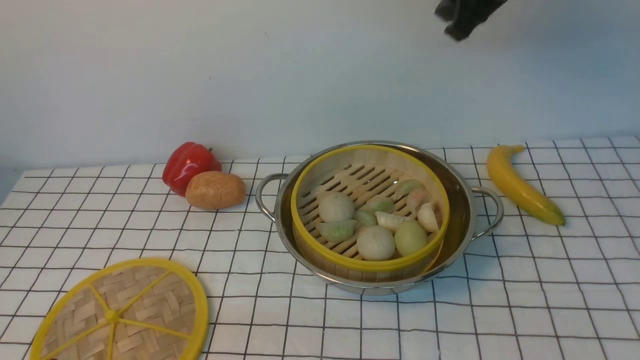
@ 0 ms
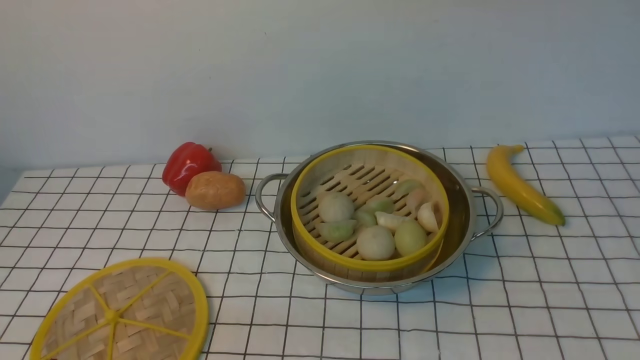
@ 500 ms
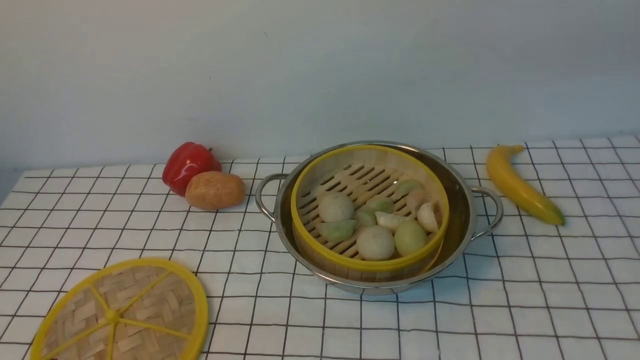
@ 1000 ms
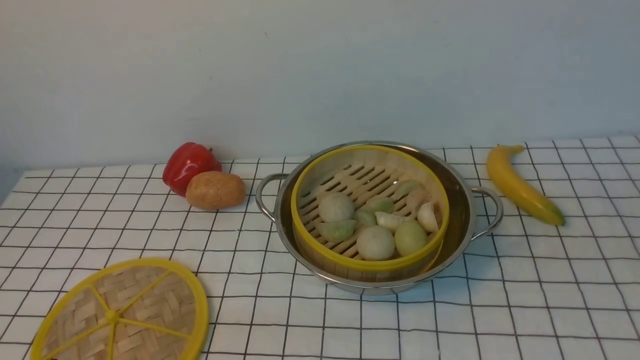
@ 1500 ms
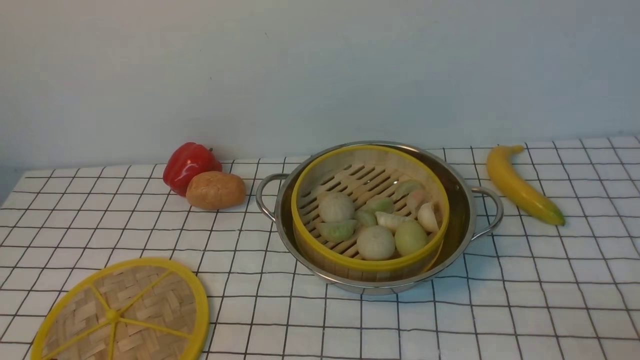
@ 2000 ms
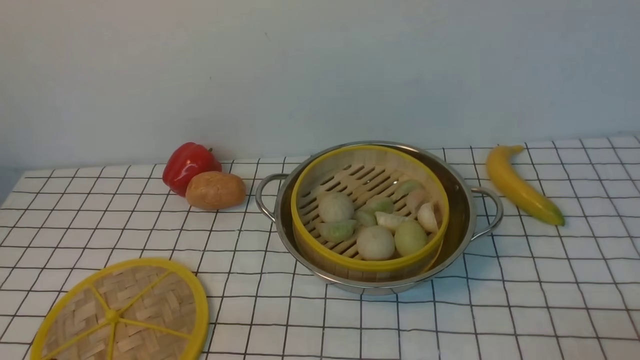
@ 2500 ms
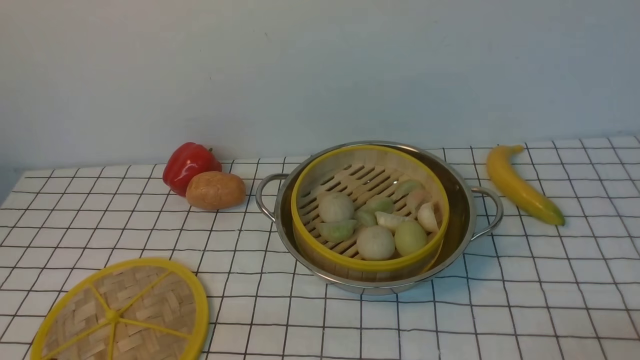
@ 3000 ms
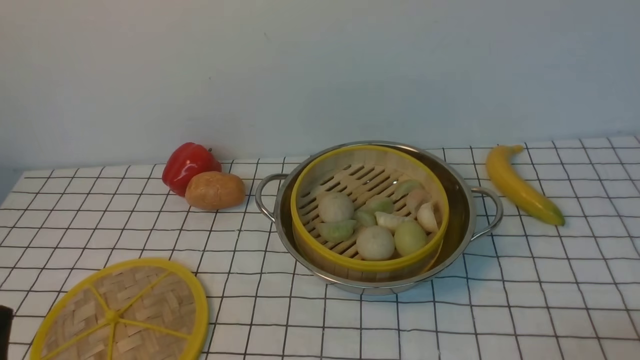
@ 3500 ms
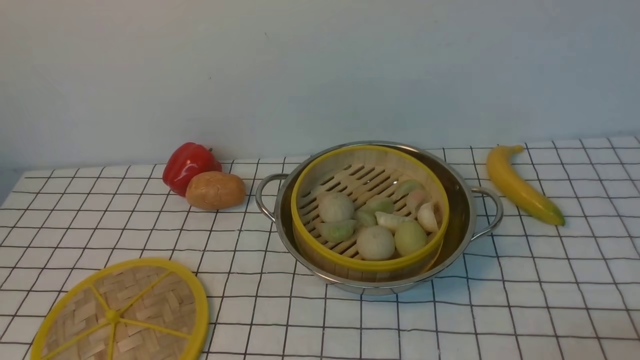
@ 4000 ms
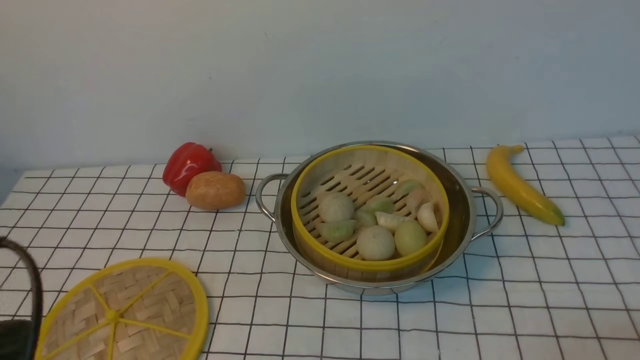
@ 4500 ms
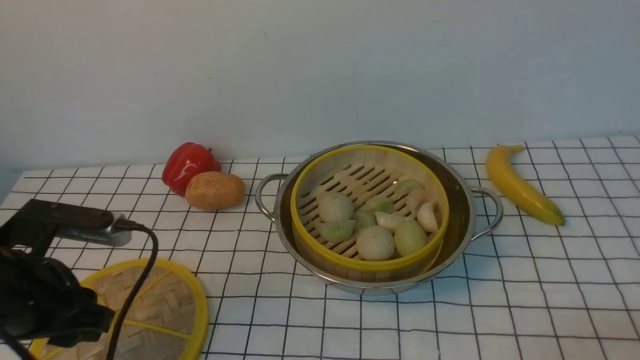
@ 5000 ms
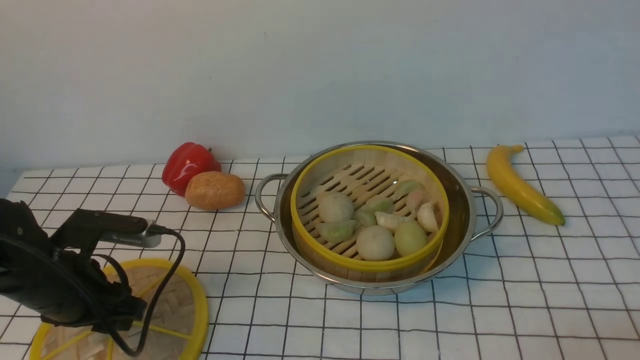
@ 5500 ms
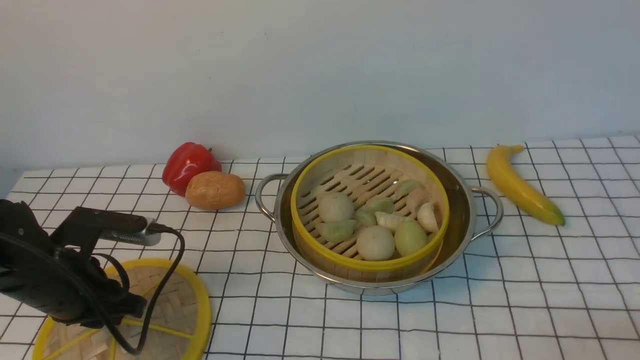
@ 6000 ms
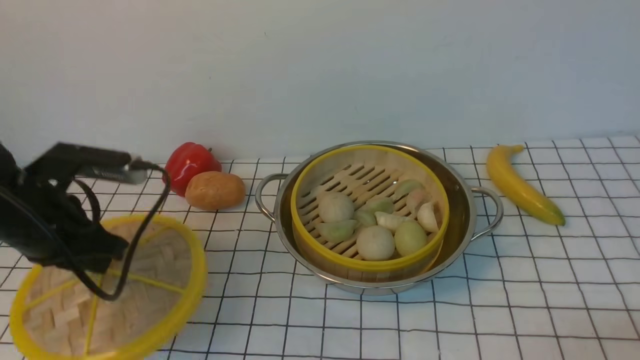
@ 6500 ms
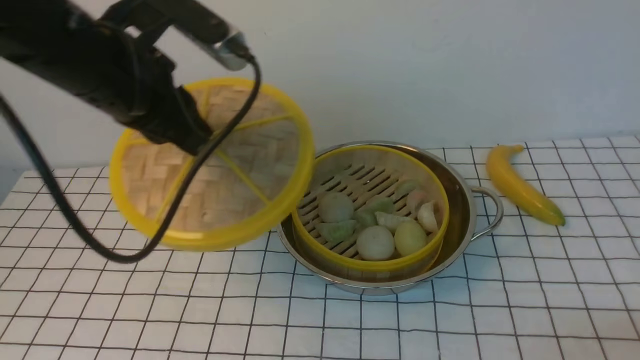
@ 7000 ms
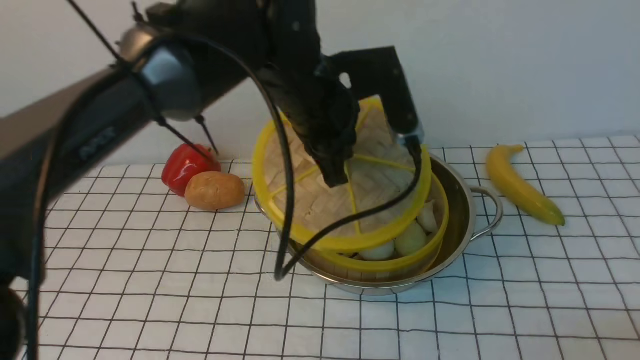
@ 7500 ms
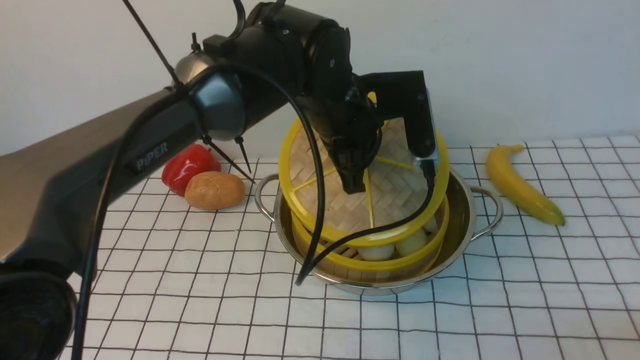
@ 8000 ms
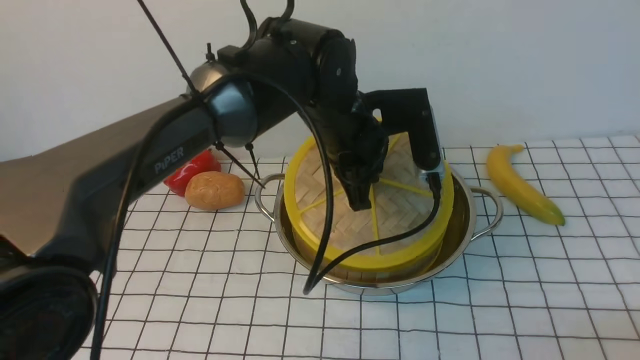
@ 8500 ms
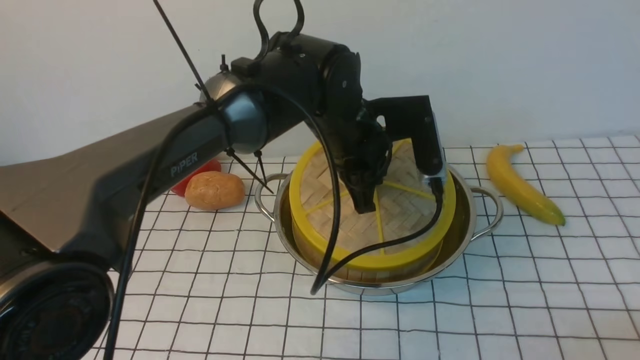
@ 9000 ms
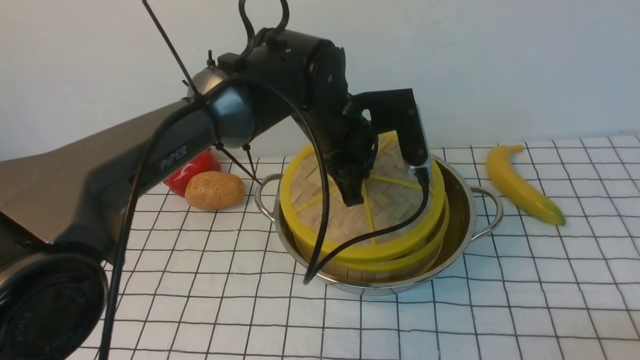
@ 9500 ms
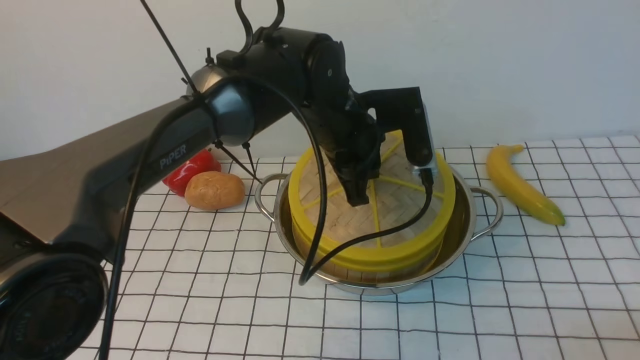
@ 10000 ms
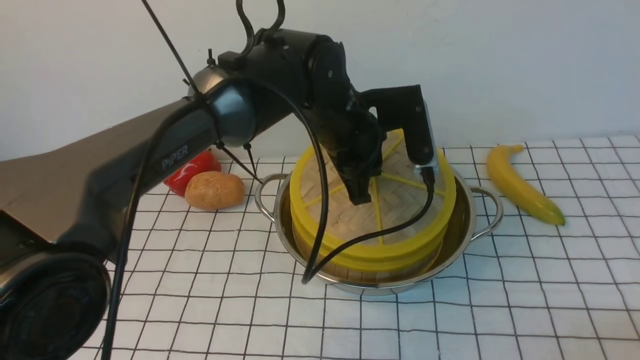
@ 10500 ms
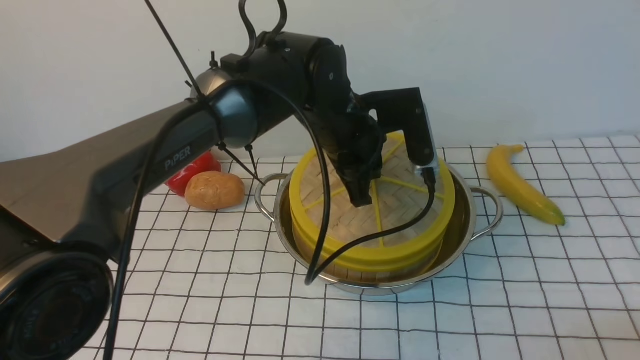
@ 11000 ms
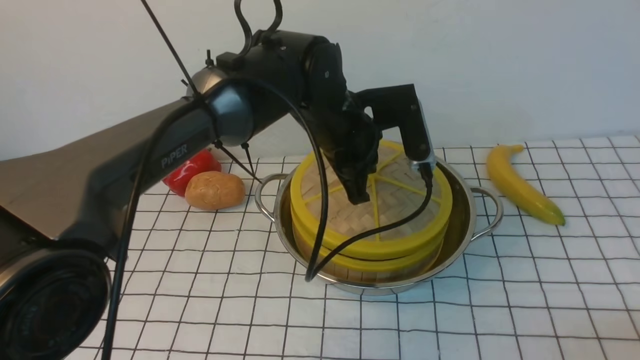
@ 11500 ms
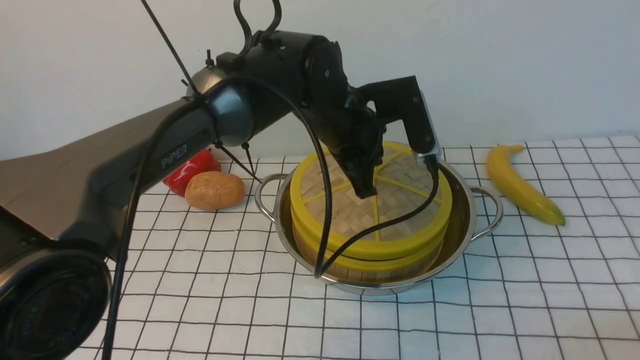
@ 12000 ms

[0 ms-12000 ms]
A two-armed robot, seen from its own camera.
Task of the whole recording: place the steamer in the pot on the white tablecloth, and put the lid on the steamer.
Step, 0 ms to 6000 ms: use the left arm to lift the lid of the steamer.
0 ms to 2000 ms: The right gripper is displaced backward and downward by about 40 cm, and closes and opens again.
4000 ms to 6000 ms: The left gripper moves forward and downward, about 25 cm, and closes its fingers.
6000 ms to 8000 ms: The left gripper travels to the right, forward and upward by some 30 cm.
8000 ms to 12000 ms: The grippers stay close to where they were, moving slightly.

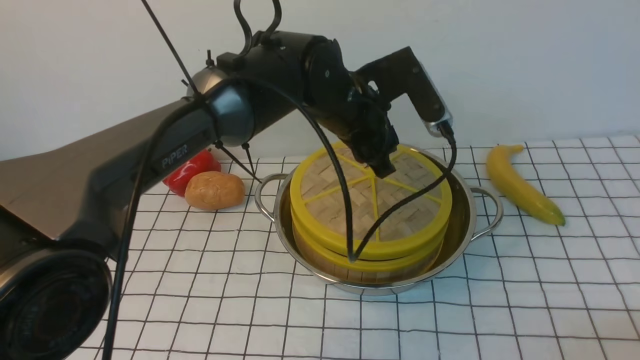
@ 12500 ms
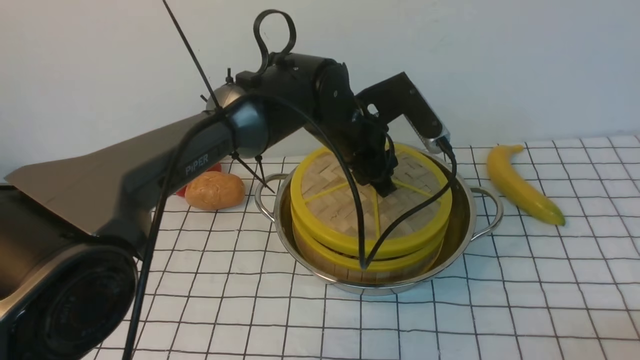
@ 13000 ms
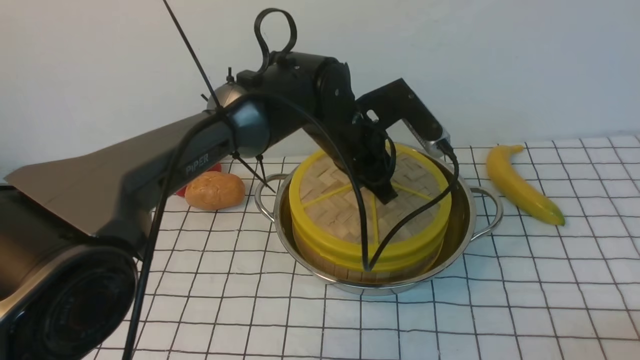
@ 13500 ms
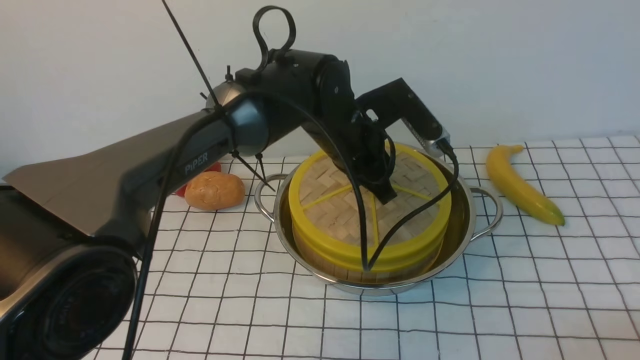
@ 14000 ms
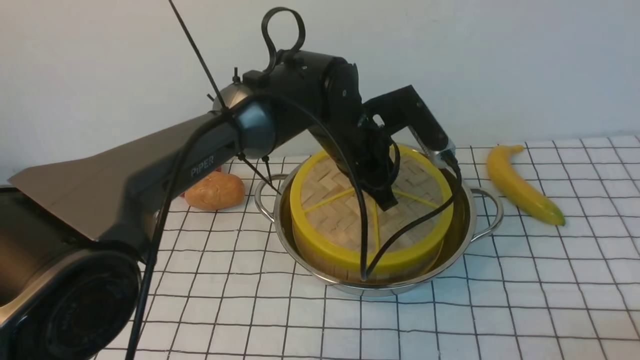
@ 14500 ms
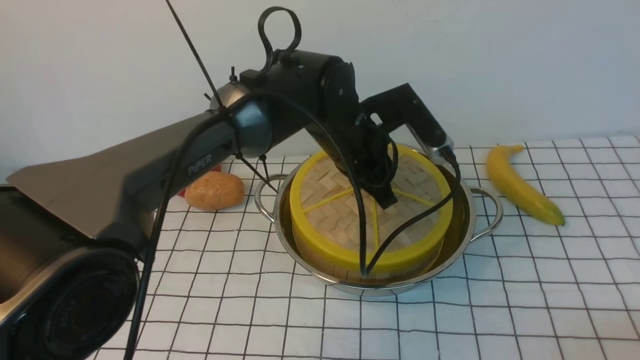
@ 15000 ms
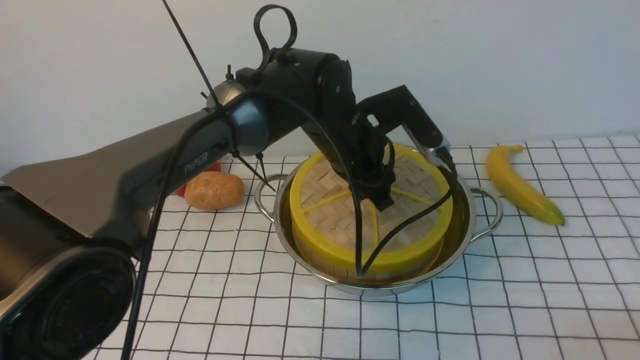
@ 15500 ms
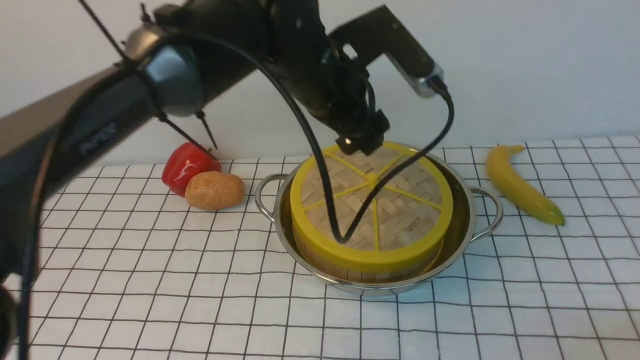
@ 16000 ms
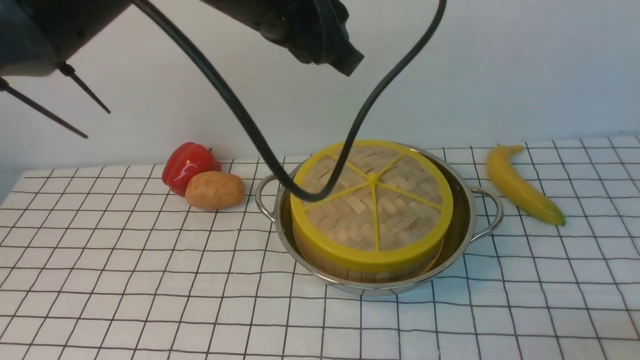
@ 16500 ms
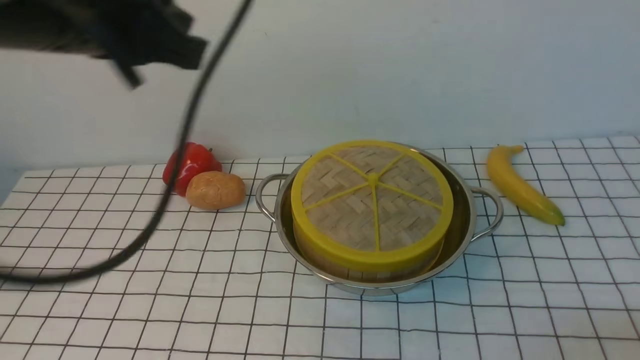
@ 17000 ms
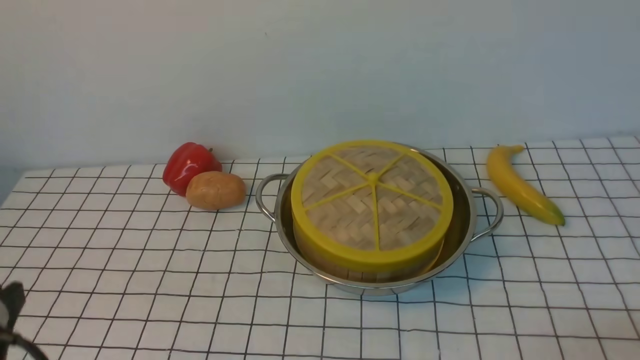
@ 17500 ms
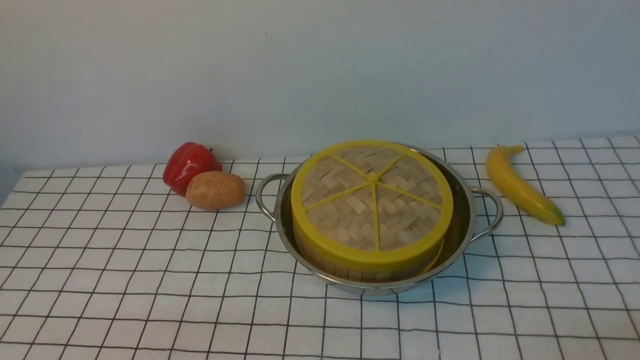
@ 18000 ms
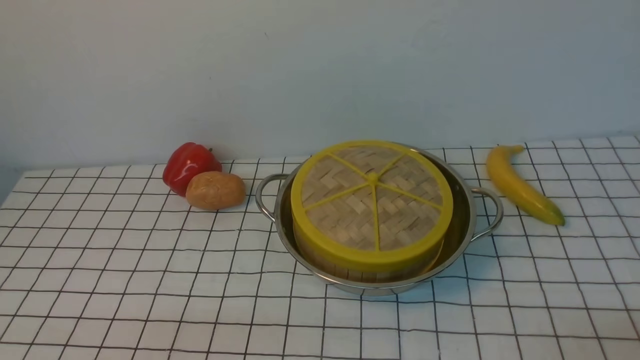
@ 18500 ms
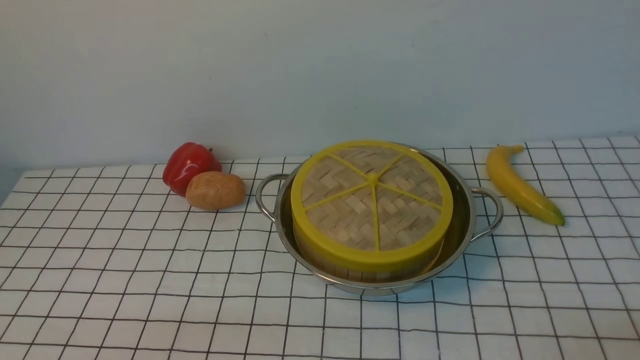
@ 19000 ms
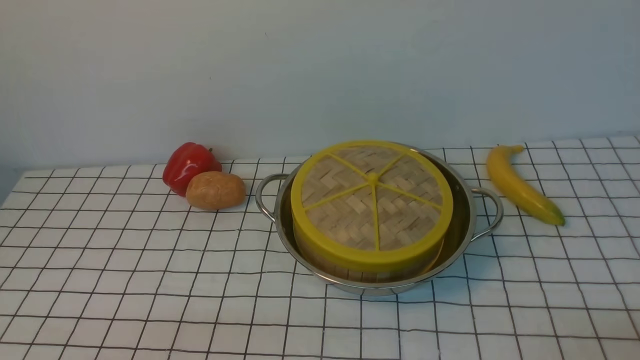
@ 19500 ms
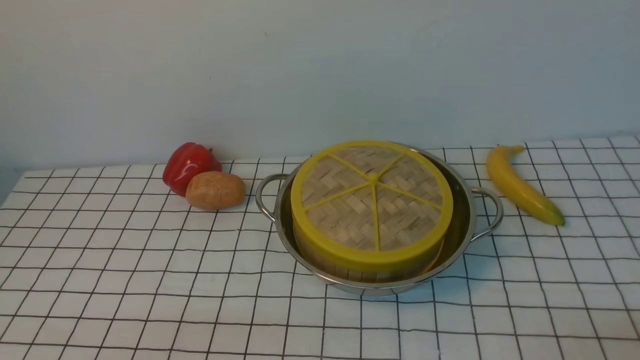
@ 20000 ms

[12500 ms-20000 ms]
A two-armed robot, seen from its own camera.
Task of the whole recording: place the steamer in the pot on the white tablecloth, and put the lid on the steamer.
Step, 12500 ms to 16000 ms: use the left arm to place the steamer lid on the steamer.
12500 ms to 14500 ms: The left gripper closes its fingers.
14500 ms to 16500 ms: The left gripper goes roughly 20 cm upward, and opens, then closes again.
16500 ms to 18000 ms: The left gripper goes roughly 40 cm backward, downward and to the left.
18000 ms to 20000 ms: Both grippers stay put.
